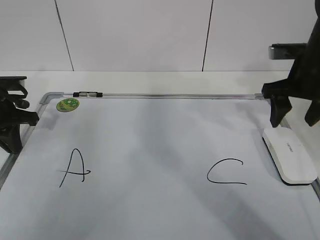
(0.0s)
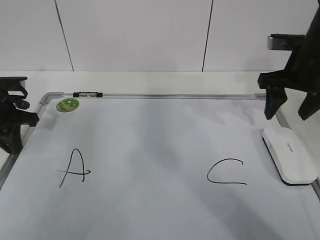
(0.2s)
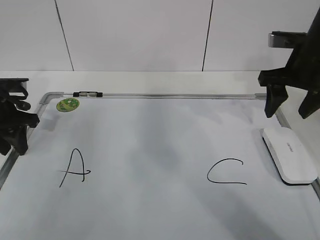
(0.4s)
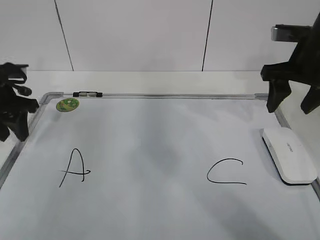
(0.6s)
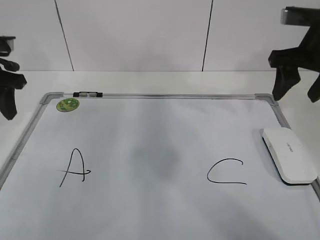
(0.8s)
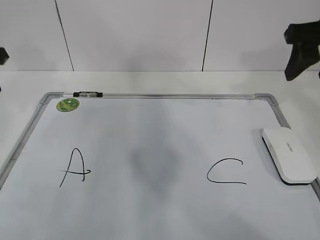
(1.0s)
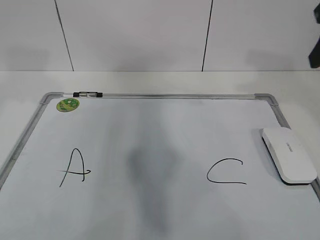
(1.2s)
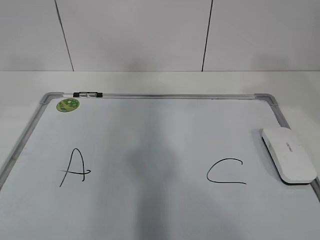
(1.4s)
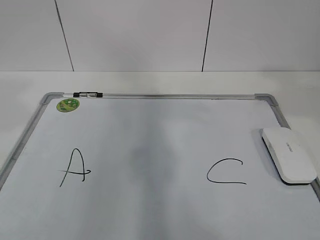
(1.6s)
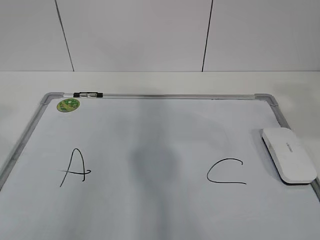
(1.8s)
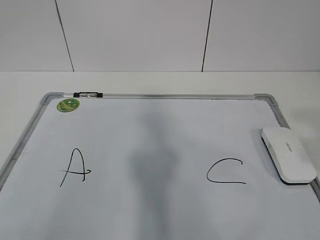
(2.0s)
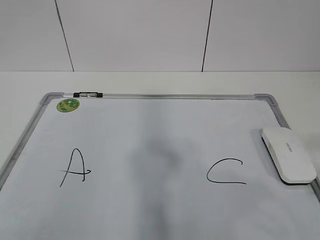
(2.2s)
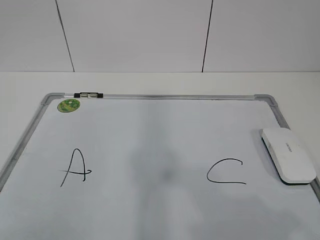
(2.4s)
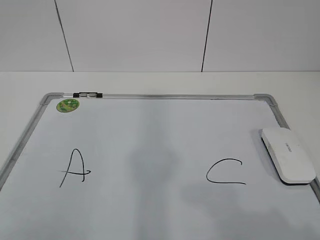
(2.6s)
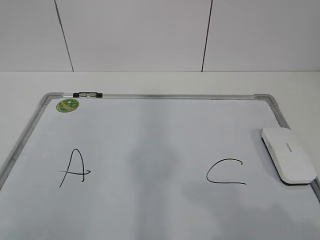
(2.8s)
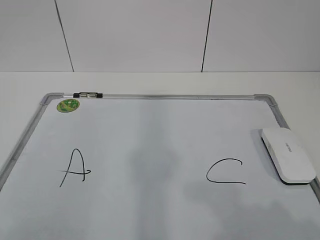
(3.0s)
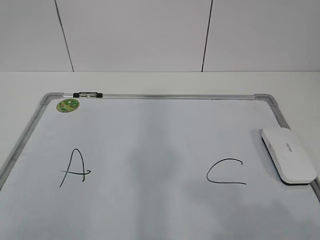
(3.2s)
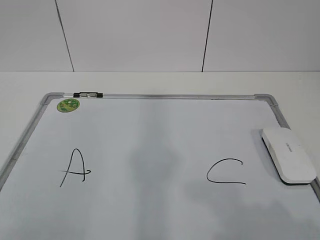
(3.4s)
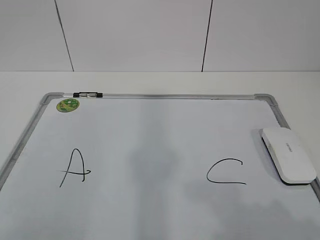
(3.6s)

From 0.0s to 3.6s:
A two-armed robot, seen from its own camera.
Task of the whole recording: pick up the eraser on the blackboard and erase the letter "B".
From 0.0s to 1.8s: The grippers both shift backward and upward by some 35 cm. The left gripper opens. The right gripper closes.
From 1.8s to 3.6s: The grippers both shift downward and backward by some 15 cm.

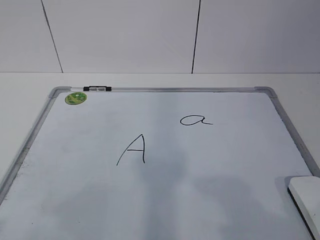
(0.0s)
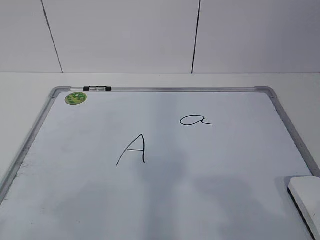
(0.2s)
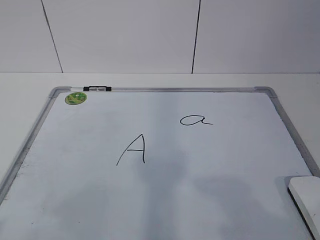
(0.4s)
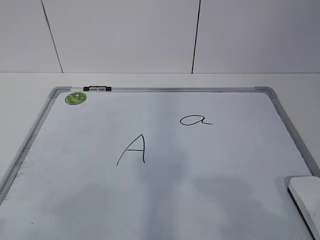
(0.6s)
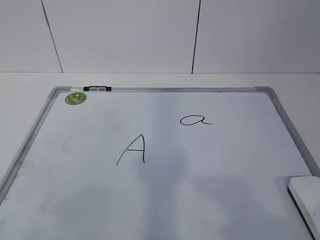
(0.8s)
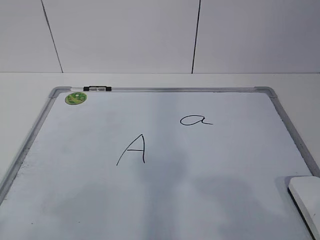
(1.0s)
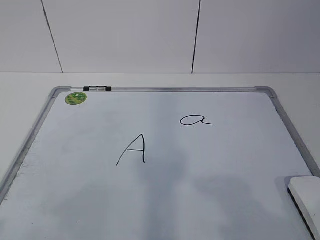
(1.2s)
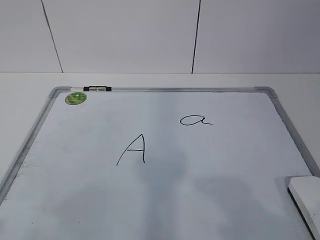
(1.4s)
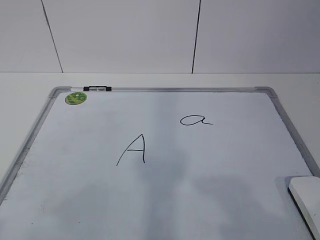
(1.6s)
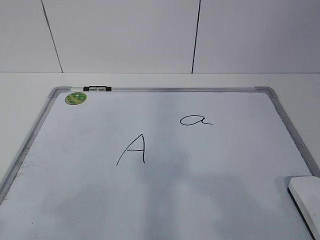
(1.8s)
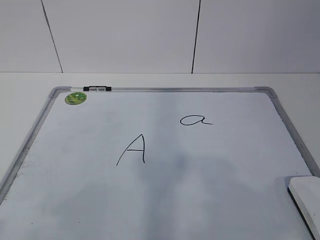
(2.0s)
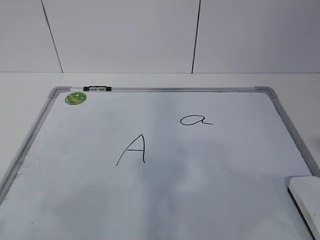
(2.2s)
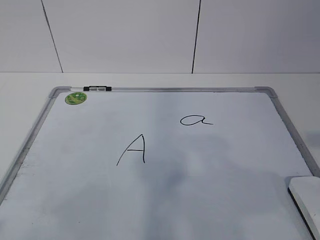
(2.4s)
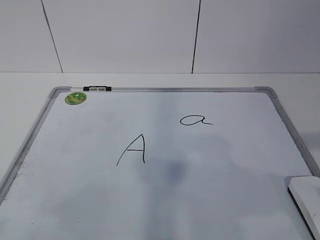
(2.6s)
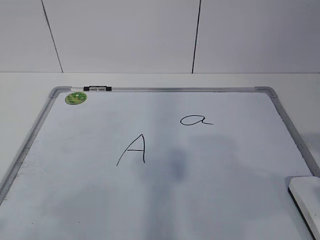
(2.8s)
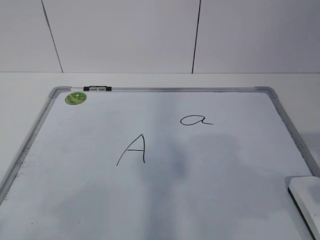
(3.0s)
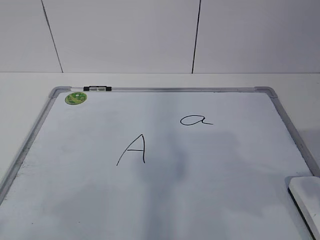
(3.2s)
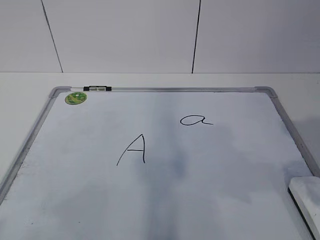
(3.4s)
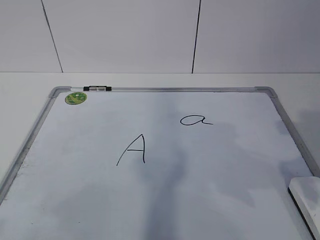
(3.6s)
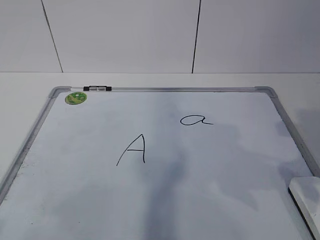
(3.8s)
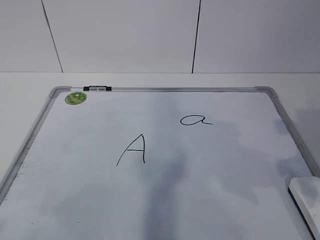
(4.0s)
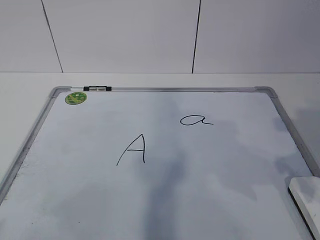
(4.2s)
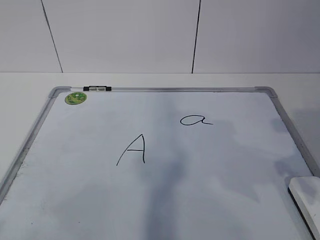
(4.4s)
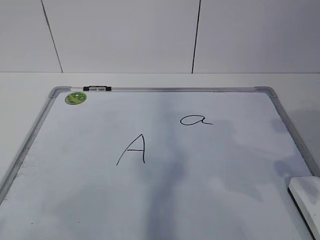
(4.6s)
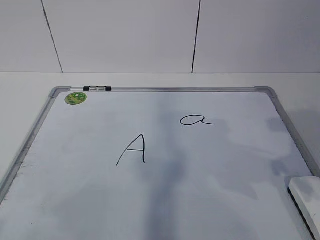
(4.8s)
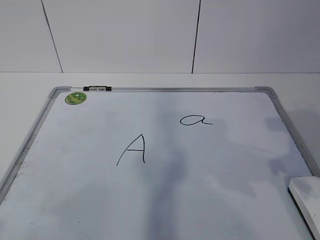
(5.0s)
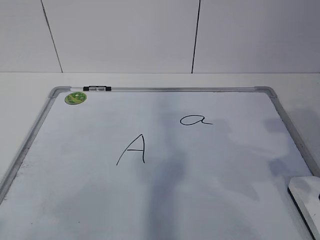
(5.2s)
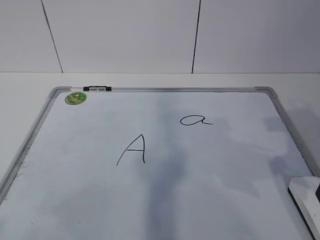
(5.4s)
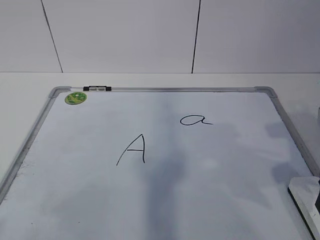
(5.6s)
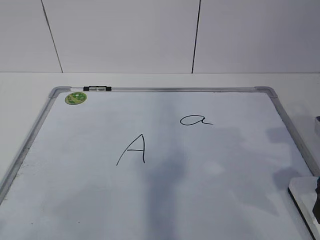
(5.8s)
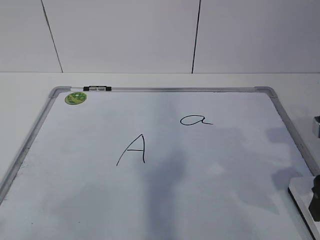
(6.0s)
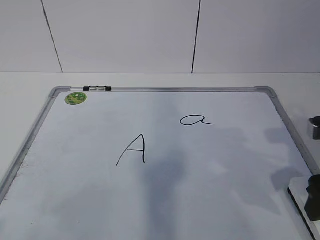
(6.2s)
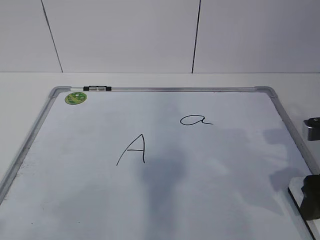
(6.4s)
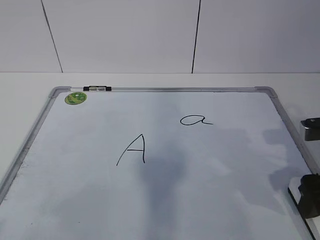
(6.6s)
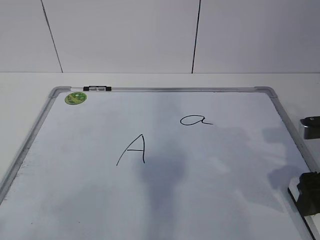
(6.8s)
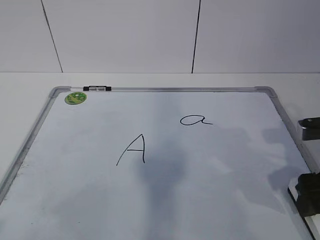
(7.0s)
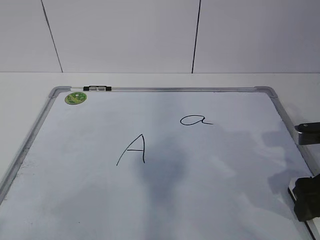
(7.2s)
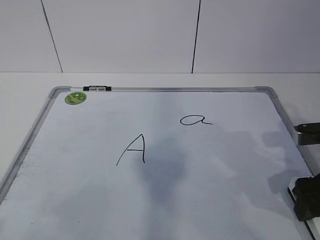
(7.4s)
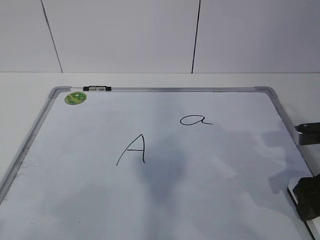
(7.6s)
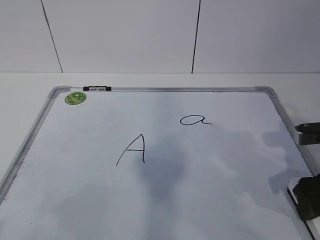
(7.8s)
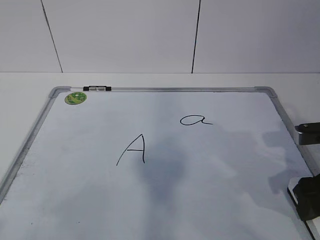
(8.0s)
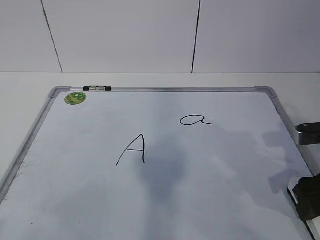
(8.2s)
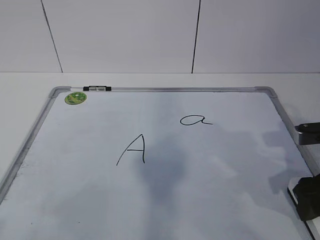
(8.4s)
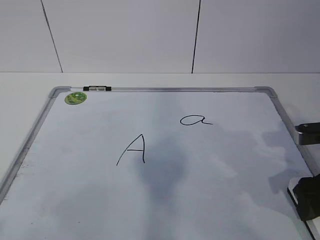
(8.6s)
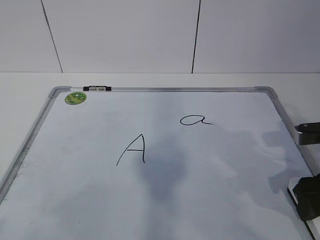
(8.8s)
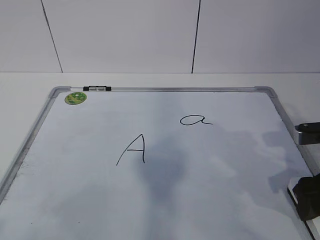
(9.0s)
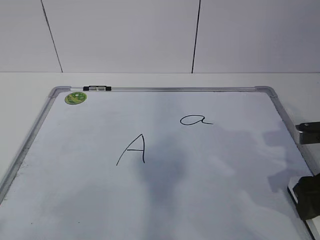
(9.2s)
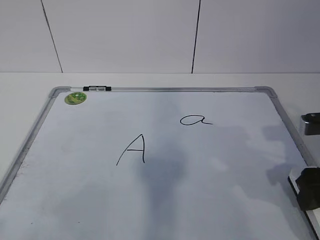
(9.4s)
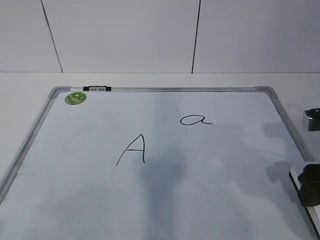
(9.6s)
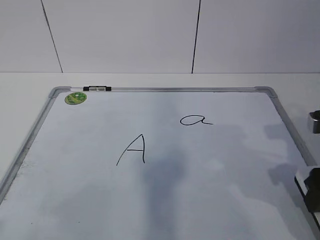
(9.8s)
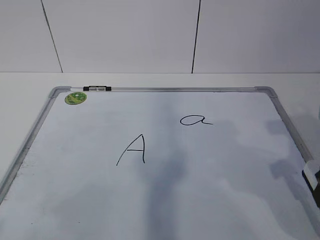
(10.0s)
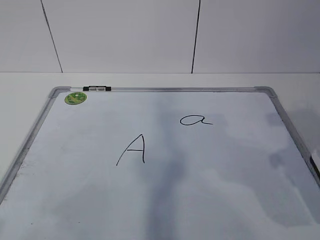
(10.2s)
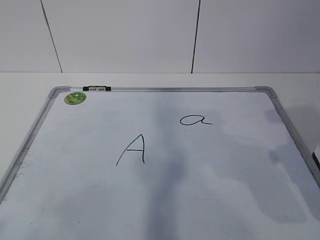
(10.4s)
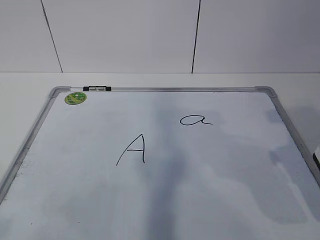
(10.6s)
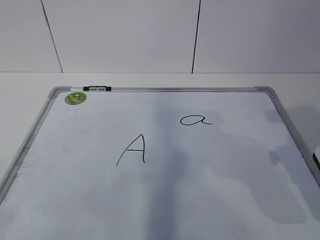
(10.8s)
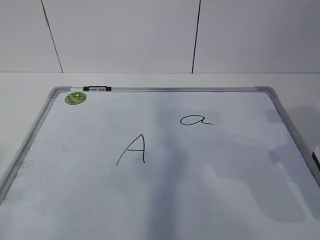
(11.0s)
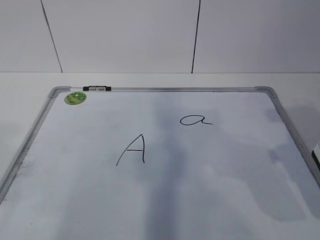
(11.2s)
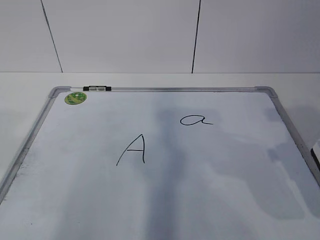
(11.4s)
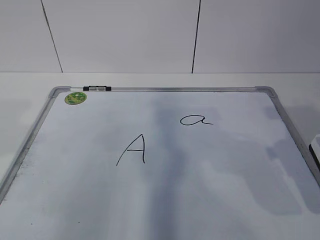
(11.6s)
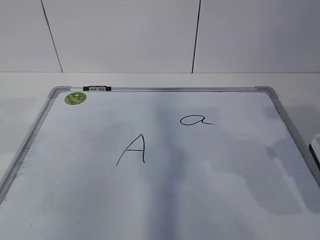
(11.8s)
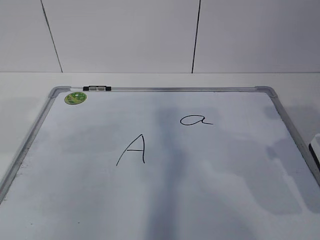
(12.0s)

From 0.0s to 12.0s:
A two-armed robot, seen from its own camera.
Task of the whole recording: pick up the eraser on the blackboard and erase the letter "a".
From 6.0s to 7.6s: There are only small adjustments of the grippers.
From 7.6s to 9.0s: Both grippers stay put.
From 9.0s to 10.4s: The right gripper moves upward, about 10 cm.

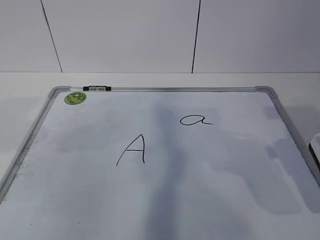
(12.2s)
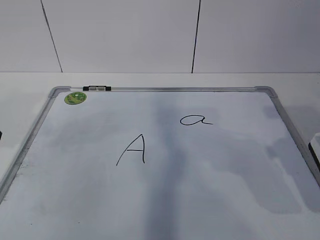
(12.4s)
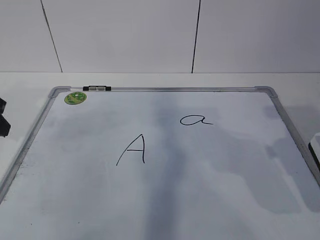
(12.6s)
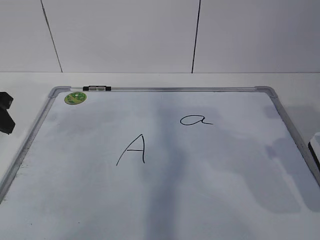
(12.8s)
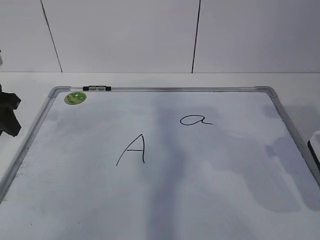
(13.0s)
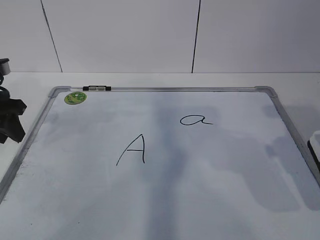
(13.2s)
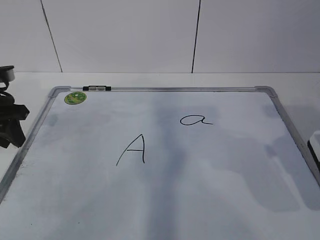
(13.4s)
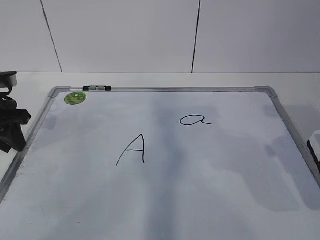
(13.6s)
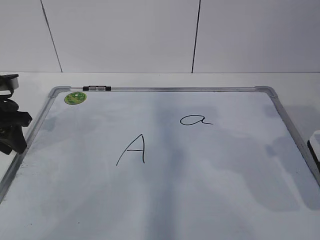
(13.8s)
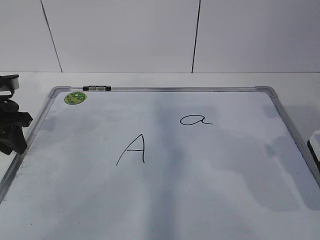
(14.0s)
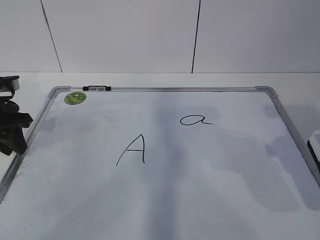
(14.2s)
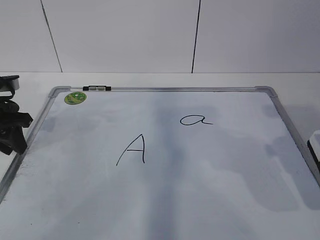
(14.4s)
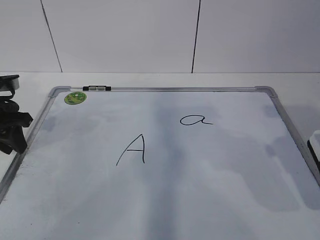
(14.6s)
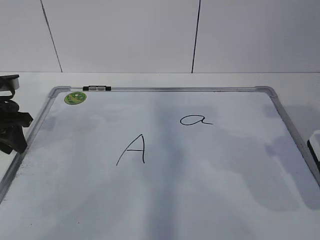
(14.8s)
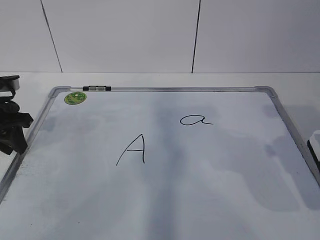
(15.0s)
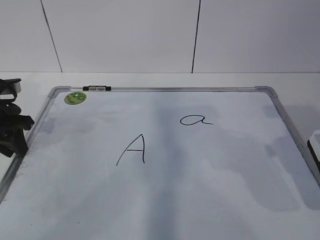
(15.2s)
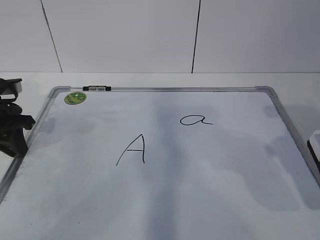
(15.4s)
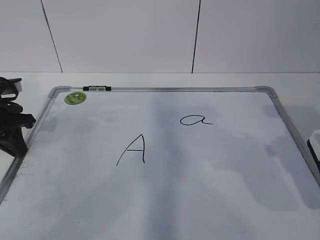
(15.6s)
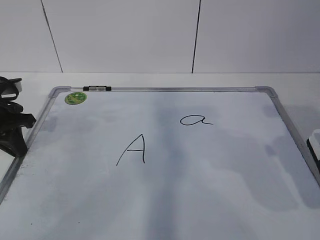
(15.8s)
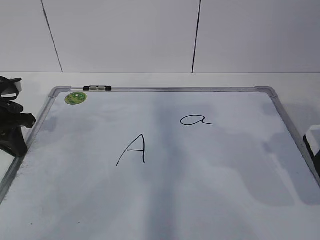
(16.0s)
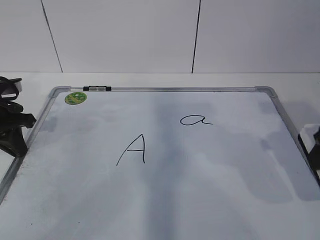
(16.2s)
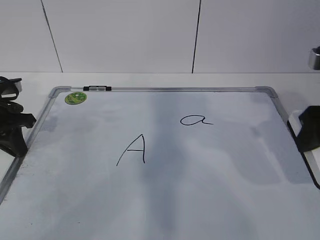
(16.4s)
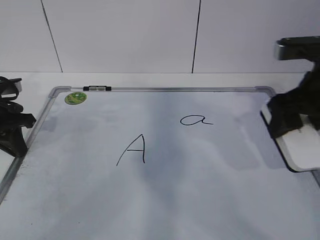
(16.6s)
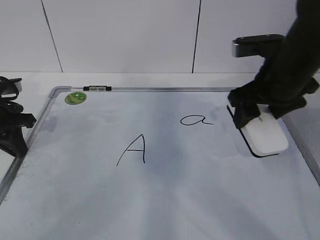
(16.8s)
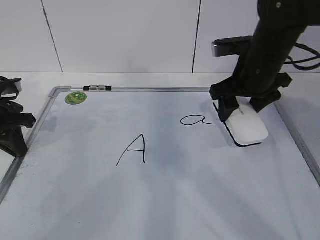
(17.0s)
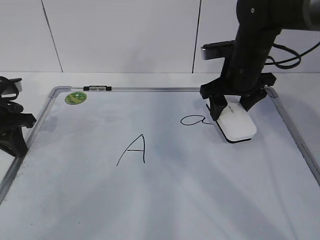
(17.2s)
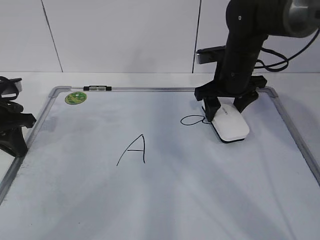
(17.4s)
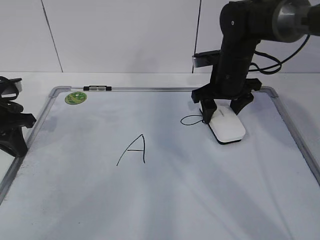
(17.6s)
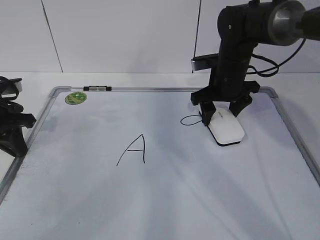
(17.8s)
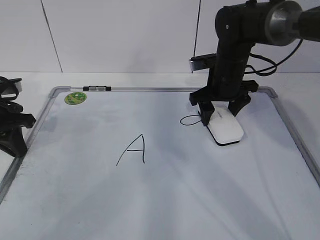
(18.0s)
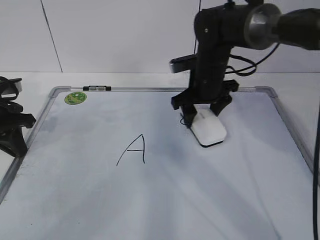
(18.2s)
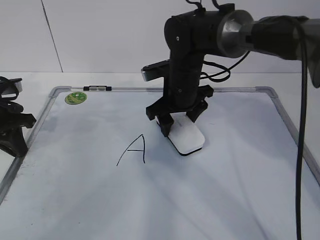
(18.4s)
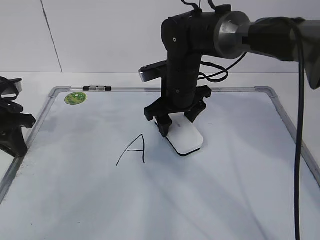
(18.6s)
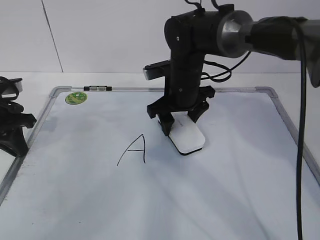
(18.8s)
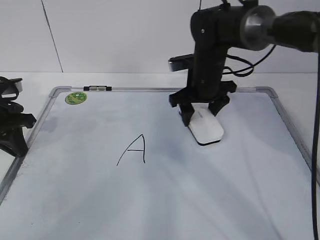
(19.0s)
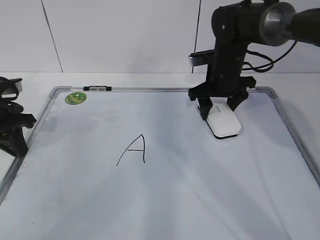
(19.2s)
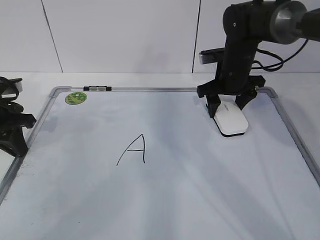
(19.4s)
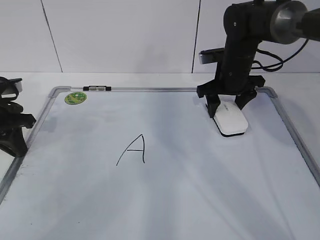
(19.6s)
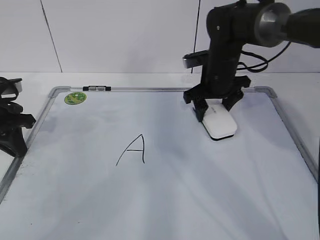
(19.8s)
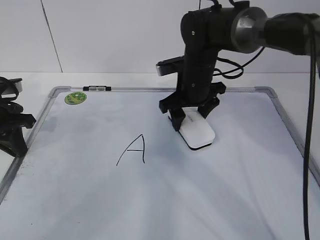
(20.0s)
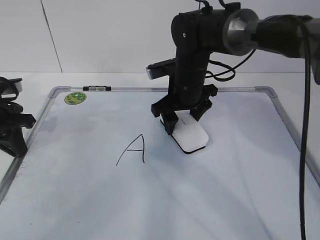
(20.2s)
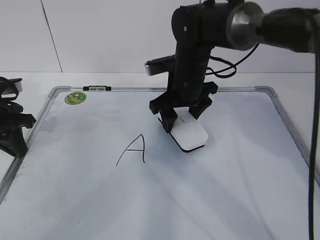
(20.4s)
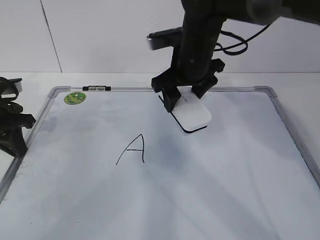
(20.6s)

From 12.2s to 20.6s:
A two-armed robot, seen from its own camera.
Task of the whole recording: pick up the eraser on the blackboard and erase the letter "a".
Step, from 13.2s to 16.8s: Erase the letter a with your right hand.
Step, from 17.0s to 19.2s: Put down the eraser with your right hand.
From 12.2s to 13.6s: The left gripper moves forward and downward, about 15 cm.
From 13.6s to 15.0s: Both grippers stay about where they are.
From 15.0s to 16.4s: The left gripper closes.
From 16.4s to 17.8s: The right gripper heads forward, to the left and downward, covering roughly 25 cm.
From 17.8s to 19.2s: The right gripper goes to the left and returns, about 10 cm each way.
From 19.2s to 20.6s: The right gripper shifts roughly 10 cm to the left, upward and backward.
